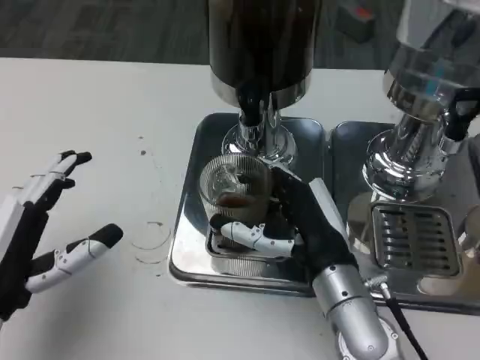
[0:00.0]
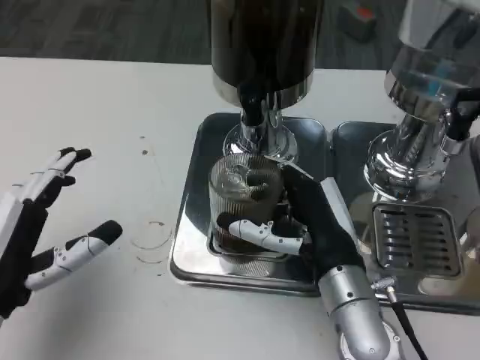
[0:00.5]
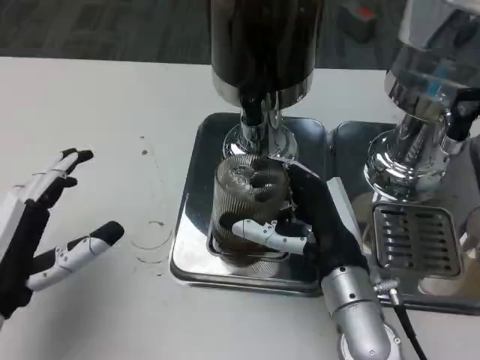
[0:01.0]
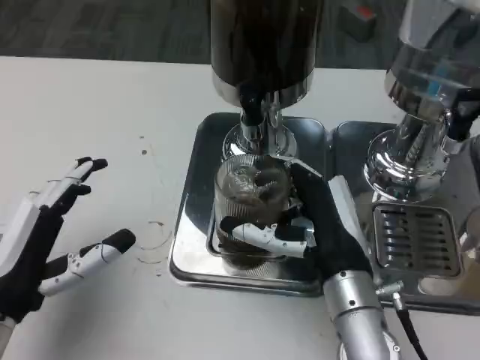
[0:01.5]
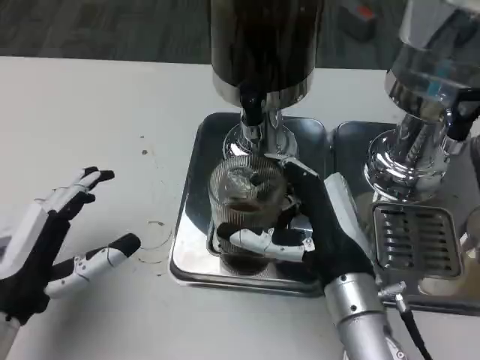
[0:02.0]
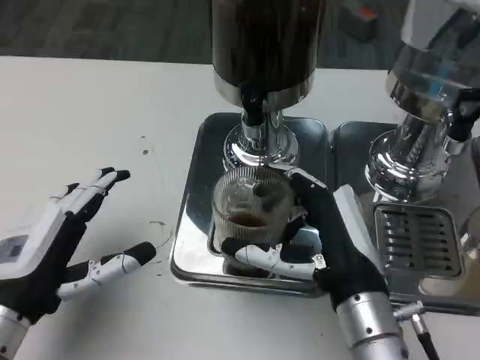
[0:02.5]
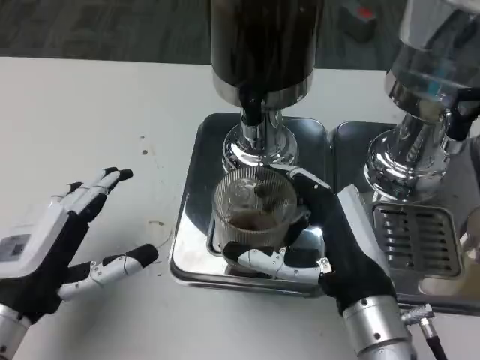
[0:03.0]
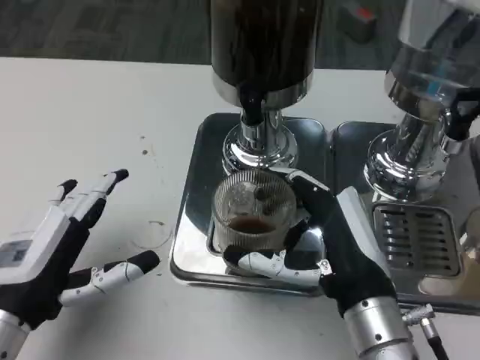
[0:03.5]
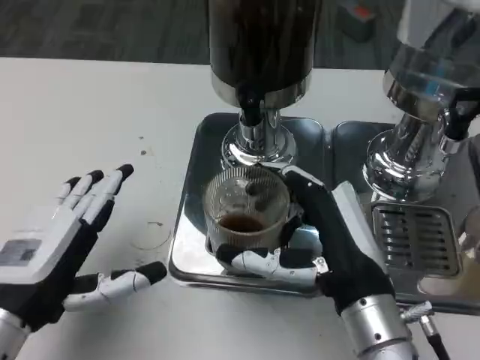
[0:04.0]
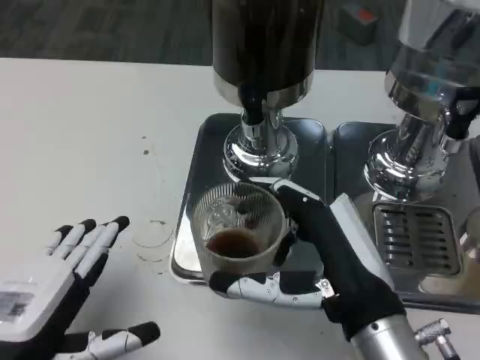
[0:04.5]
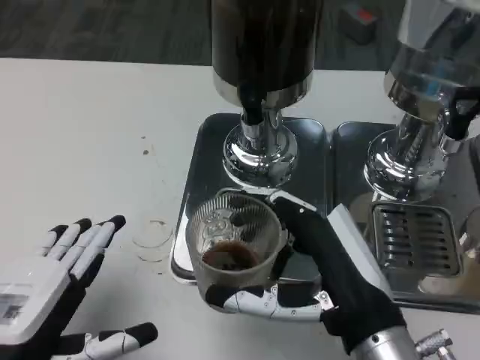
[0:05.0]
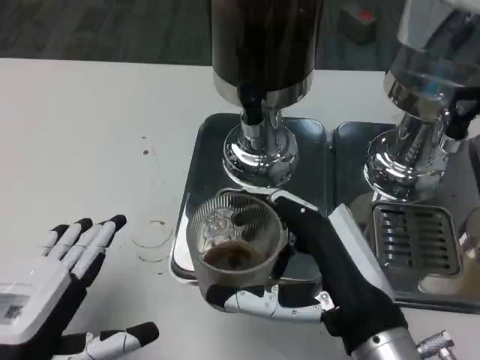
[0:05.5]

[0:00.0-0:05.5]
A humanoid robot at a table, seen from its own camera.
Task of the whole recording: Grasp the cup under the faucet to collect the drink, then remove the cup.
0:00.0 to 0:02.0: The hands make only small movements.
0:03.5 to 0:05.5: The left hand shifts roughly 5 cm backward.

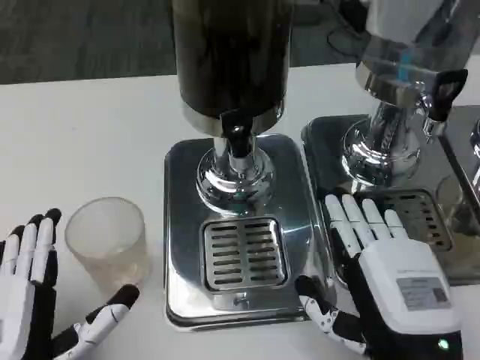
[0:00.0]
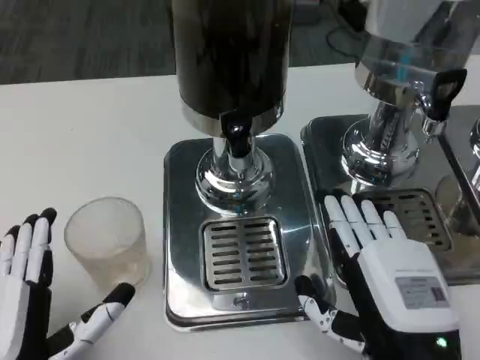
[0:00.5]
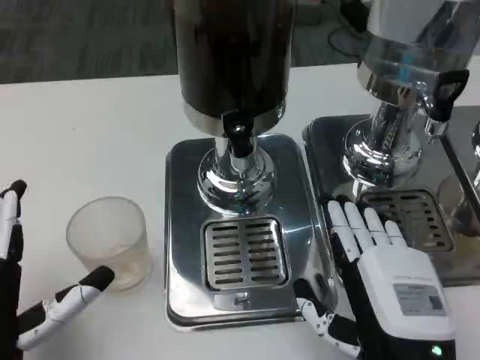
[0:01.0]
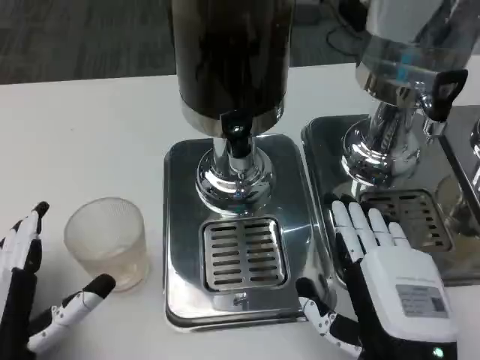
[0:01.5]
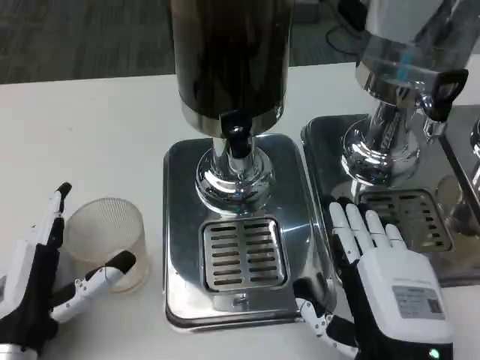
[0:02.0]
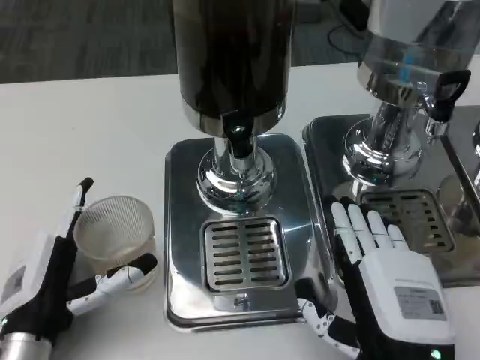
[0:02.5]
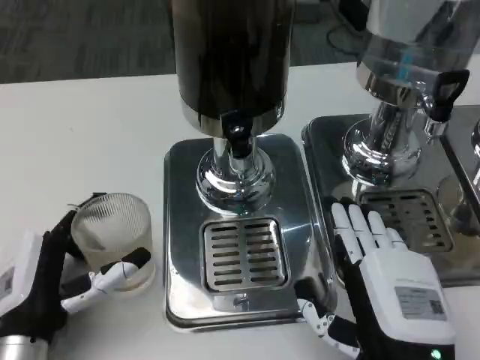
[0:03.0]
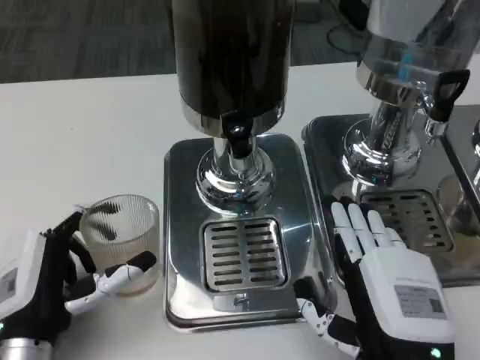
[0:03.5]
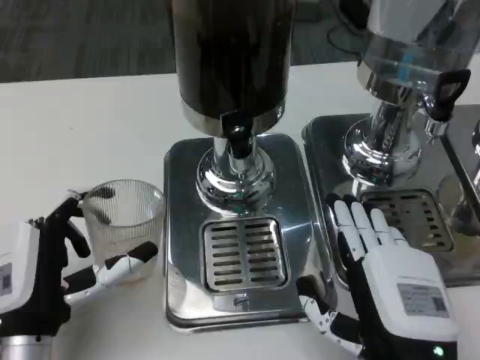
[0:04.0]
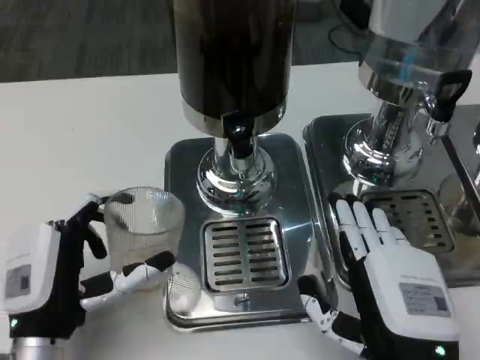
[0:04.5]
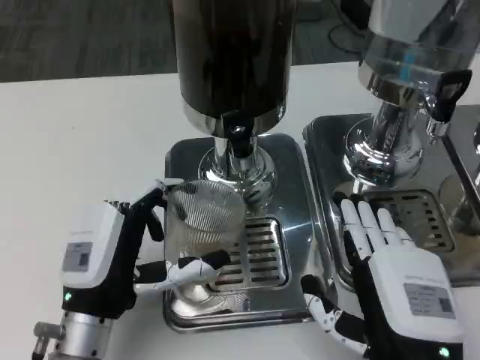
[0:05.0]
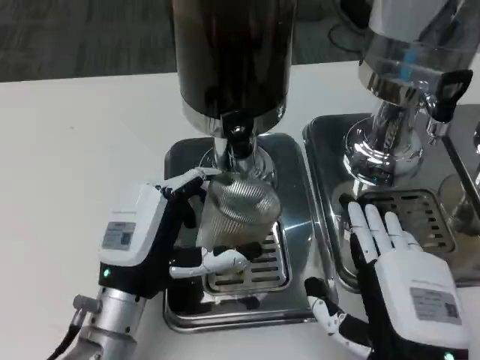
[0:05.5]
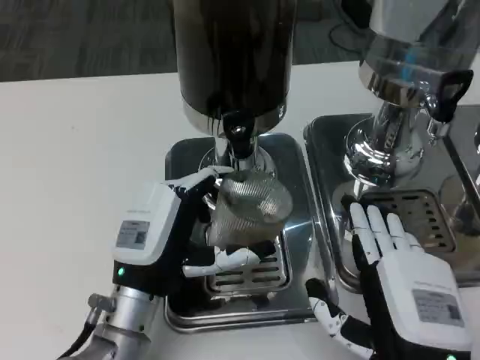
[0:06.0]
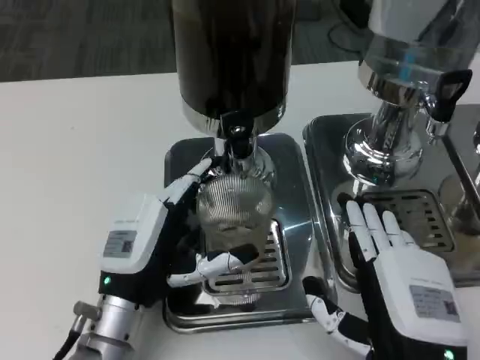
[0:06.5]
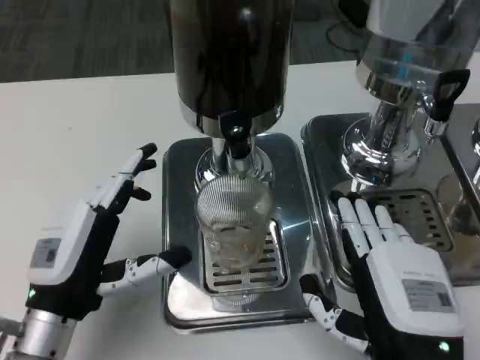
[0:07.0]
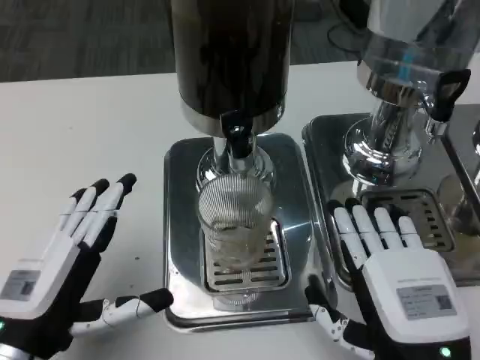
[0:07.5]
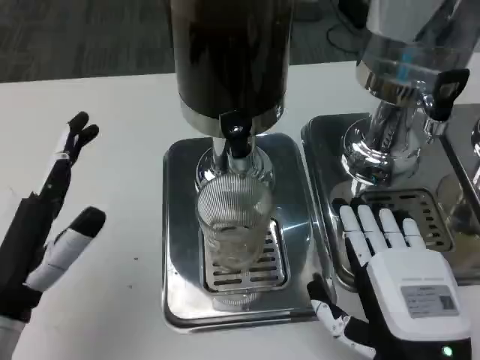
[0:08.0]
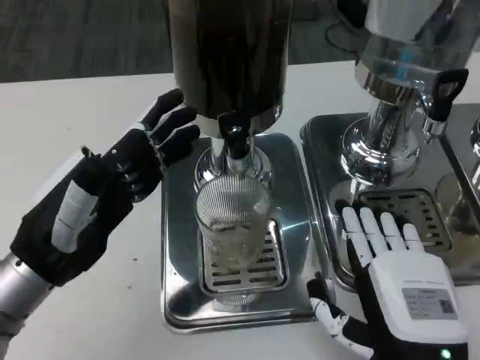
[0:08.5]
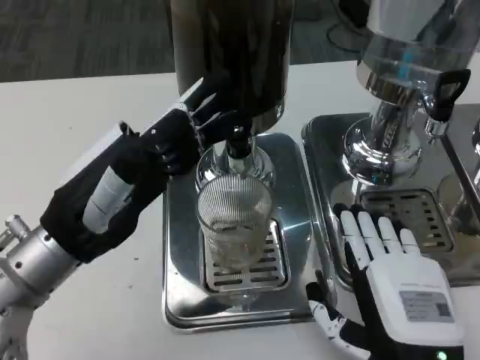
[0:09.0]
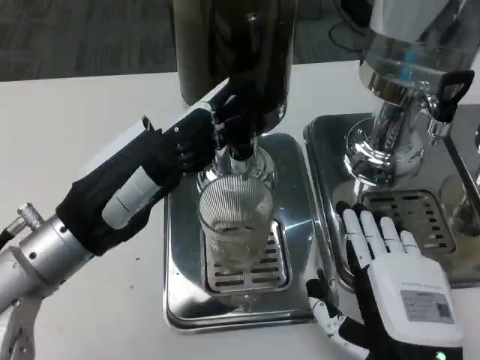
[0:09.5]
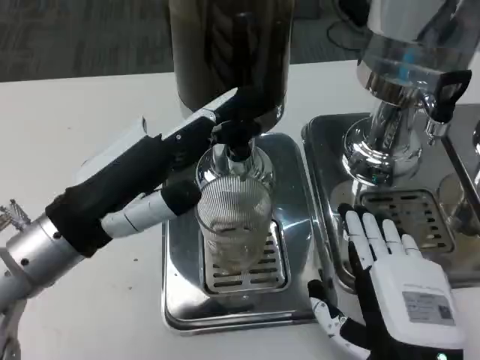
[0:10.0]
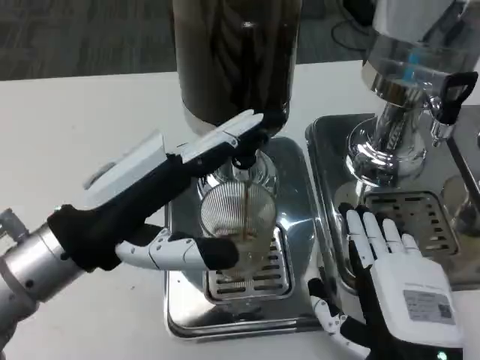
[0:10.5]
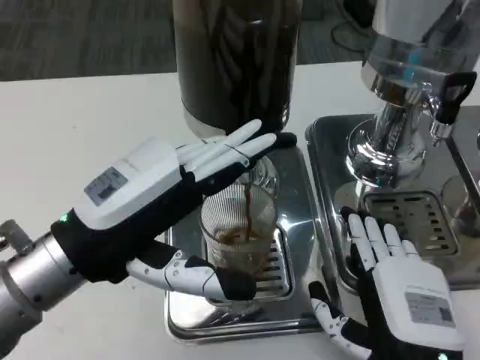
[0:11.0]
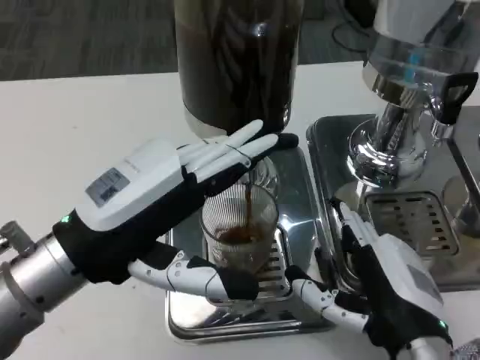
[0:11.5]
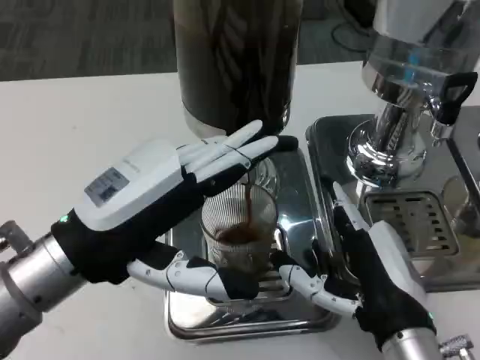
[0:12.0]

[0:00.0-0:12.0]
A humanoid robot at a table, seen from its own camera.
Task of the whole recording: Grasp the cup under the faucet to collect the drink, then remove the cup.
0:00.0 to 0:02.0: The left hand shifts approximately 5 cm forward.
0:02.0 to 0:04.0: The hands move only a little.
0:04.0 to 0:06.0: The left hand travels to the right and forward by about 10 cm.
0:06.0 to 0:08.0: The left hand goes approximately 15 cm to the left, upward and backward.
0:08.0 to 0:10.0: The left hand heads upward and forward, covering some 10 cm.

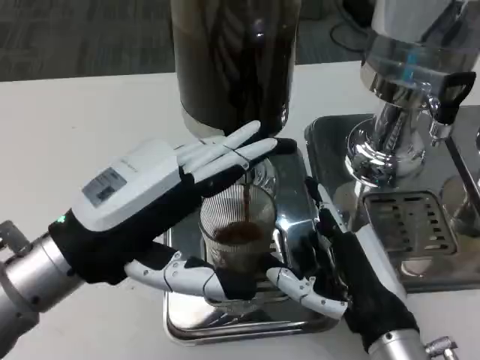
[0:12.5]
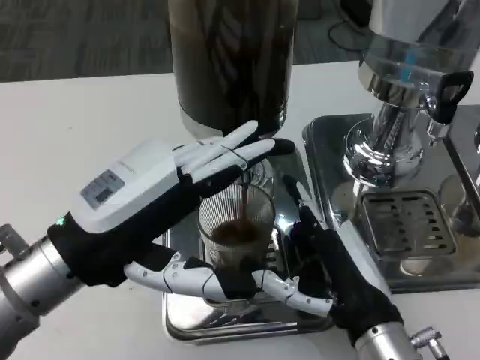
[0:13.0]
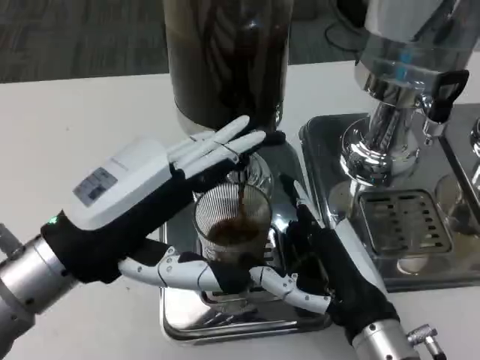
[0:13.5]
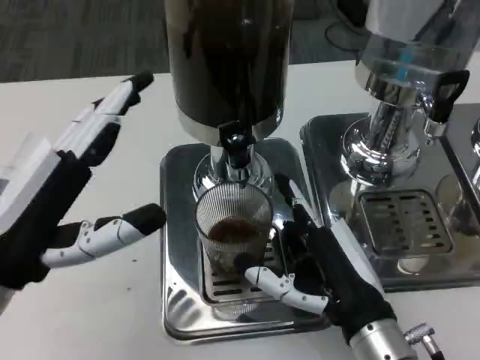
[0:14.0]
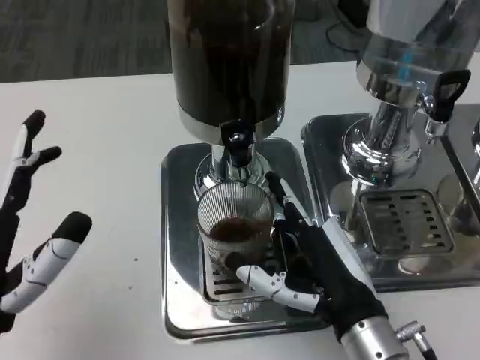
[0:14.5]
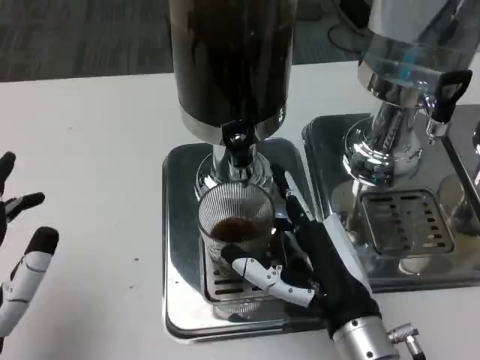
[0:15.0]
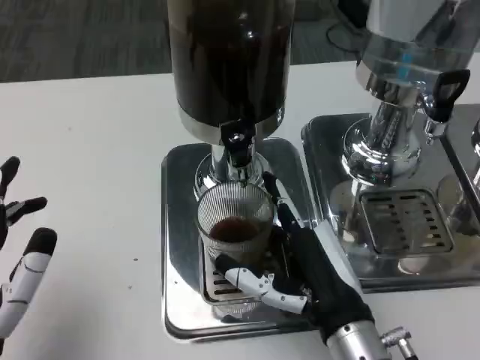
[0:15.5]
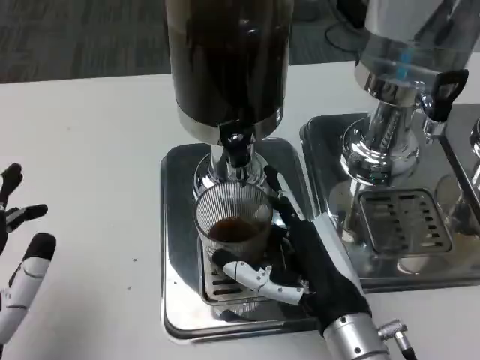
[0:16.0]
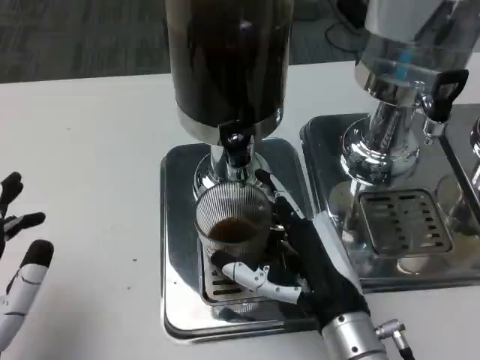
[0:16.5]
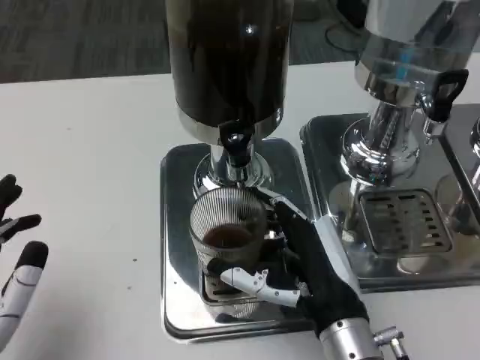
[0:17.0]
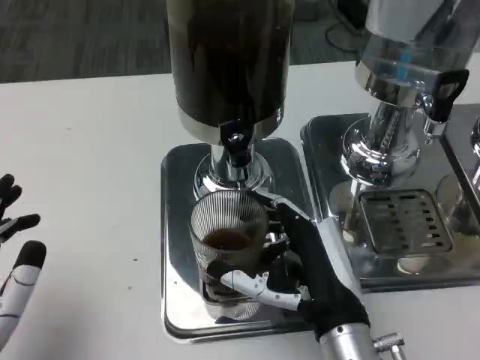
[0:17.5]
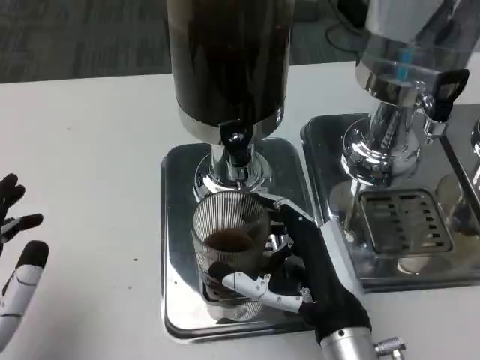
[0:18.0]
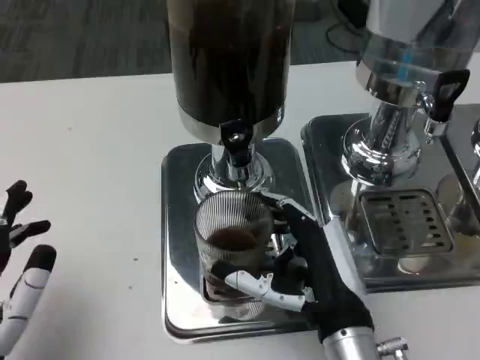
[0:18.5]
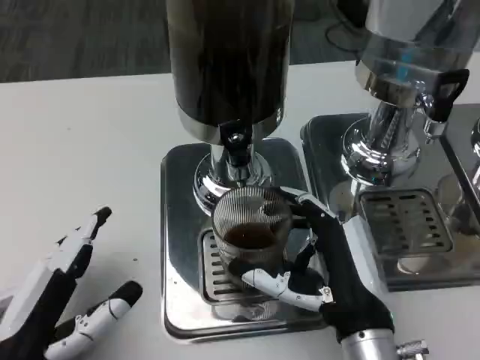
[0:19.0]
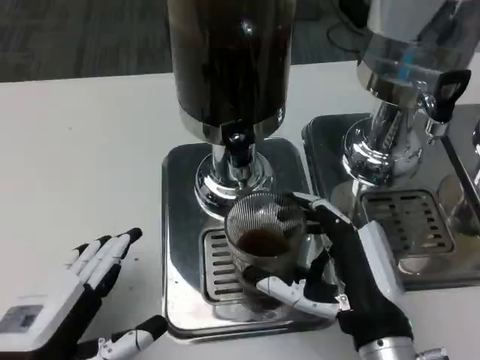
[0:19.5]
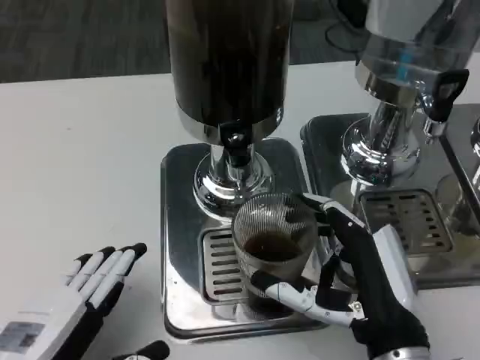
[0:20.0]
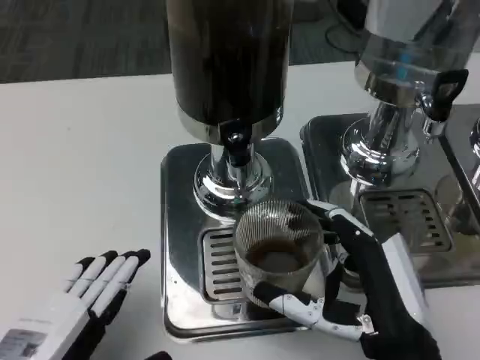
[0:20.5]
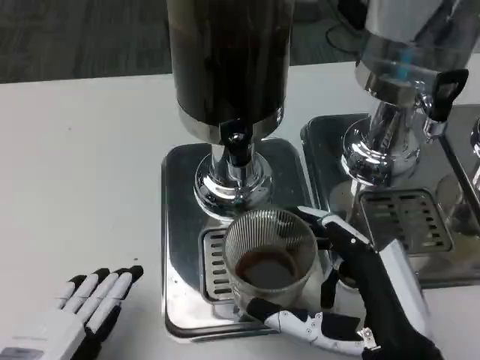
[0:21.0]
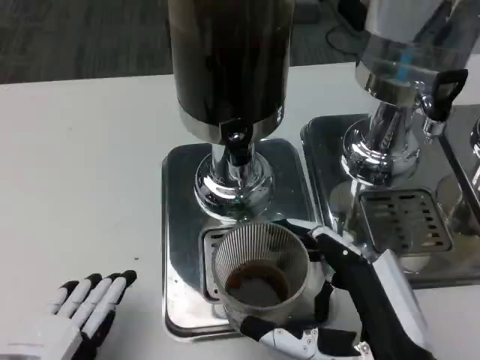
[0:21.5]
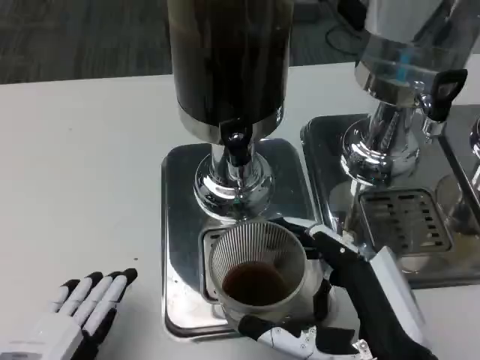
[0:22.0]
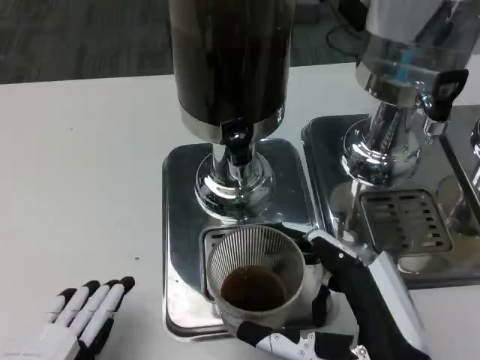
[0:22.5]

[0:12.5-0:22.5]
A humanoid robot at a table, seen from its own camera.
Task of the whole recording: Grasp the cup under the faucet to collect the drink, then remove the cup.
0:12.5 to 0:14.5: The left hand heads downward and backward, covering about 10 cm.
0:14.5 to 0:18.5: The hands make only small movements.
0:18.5 to 0:20.5: The right hand changes place by roughly 5 cm.
